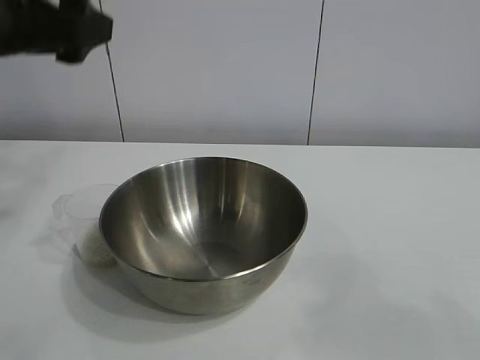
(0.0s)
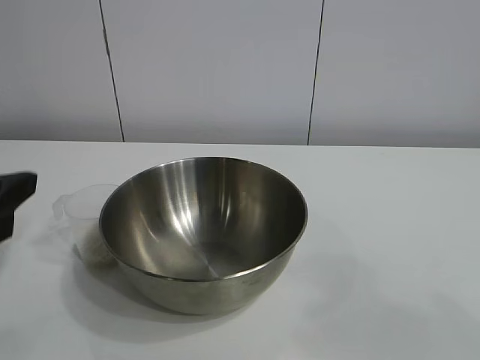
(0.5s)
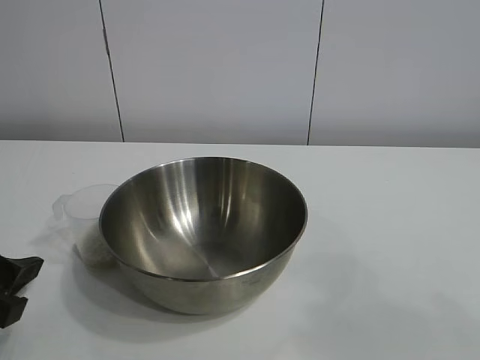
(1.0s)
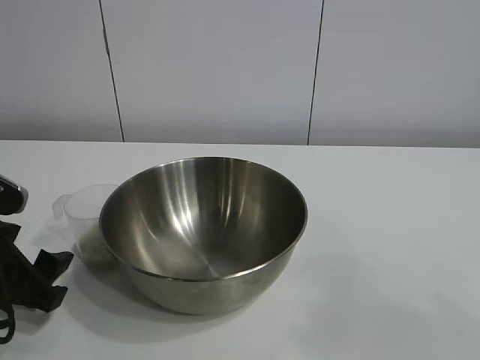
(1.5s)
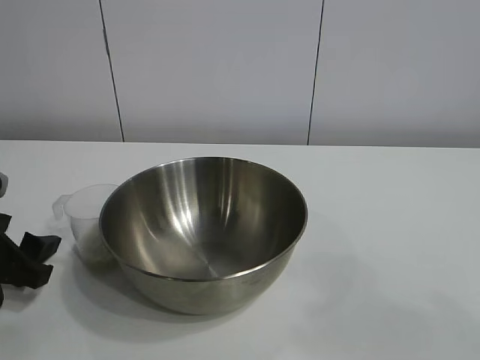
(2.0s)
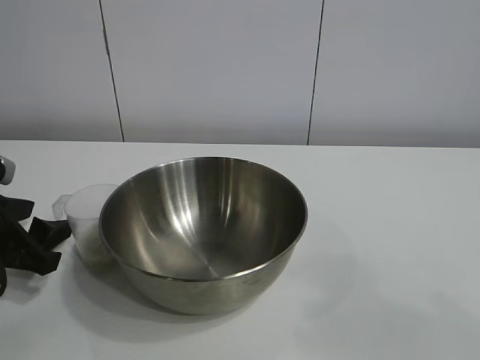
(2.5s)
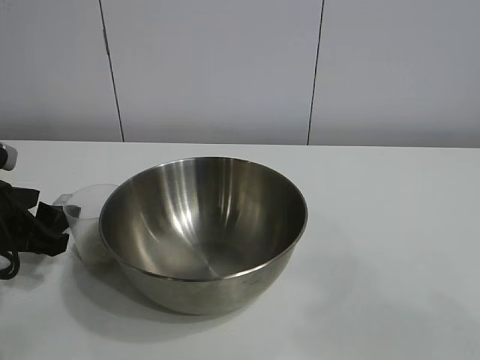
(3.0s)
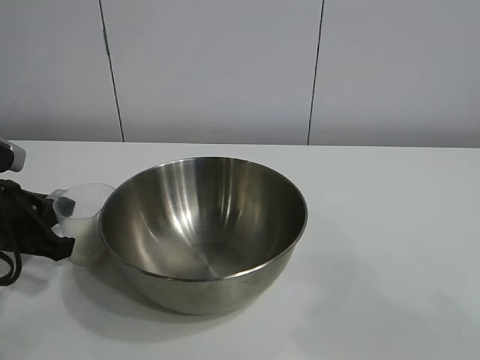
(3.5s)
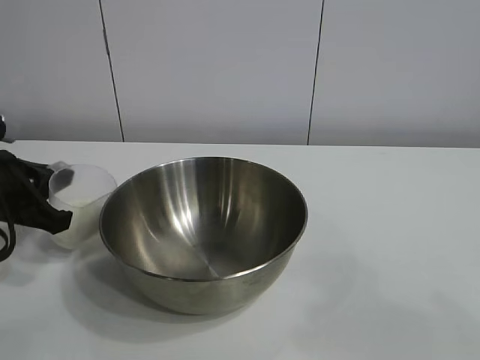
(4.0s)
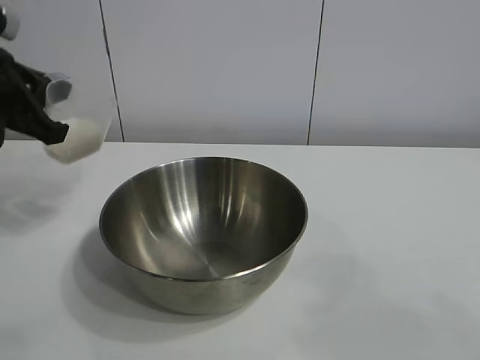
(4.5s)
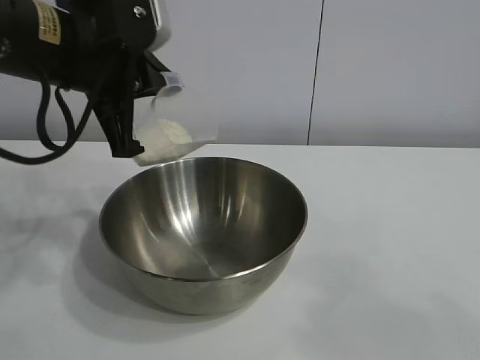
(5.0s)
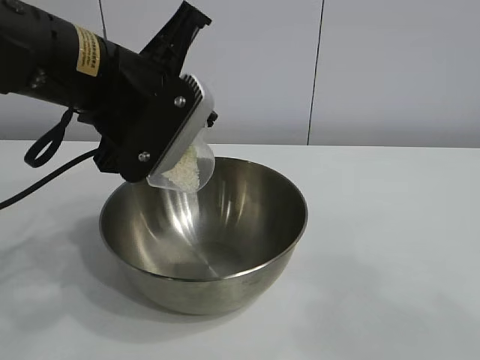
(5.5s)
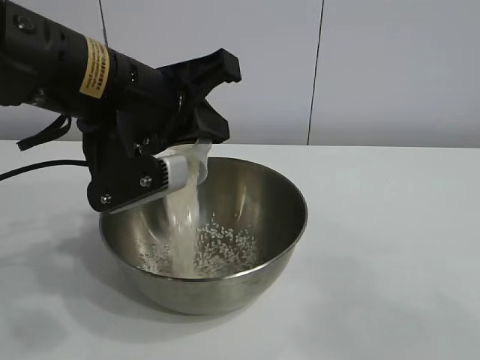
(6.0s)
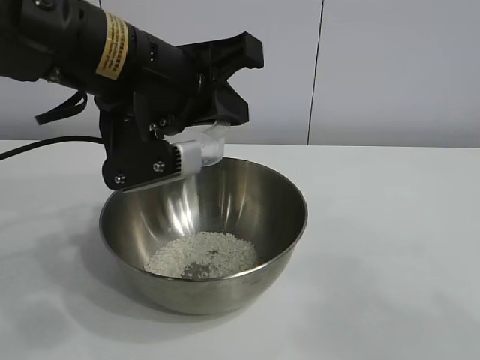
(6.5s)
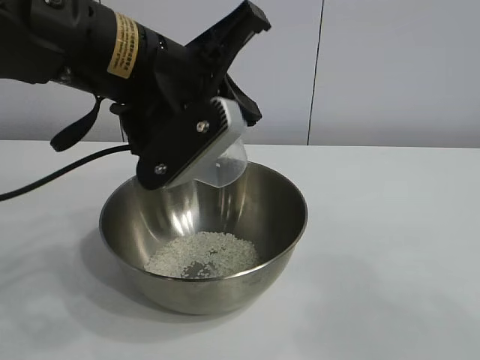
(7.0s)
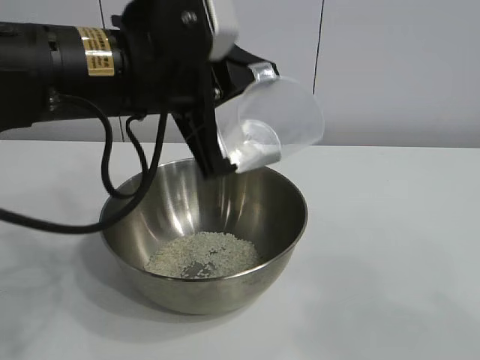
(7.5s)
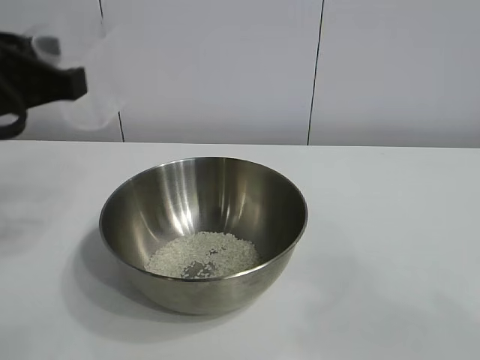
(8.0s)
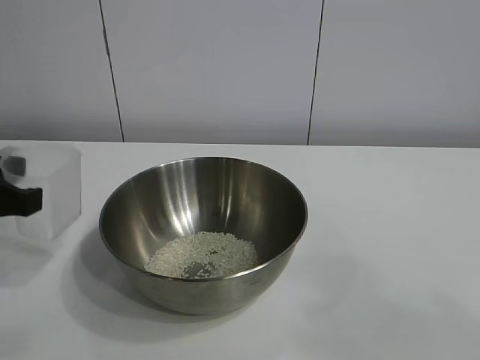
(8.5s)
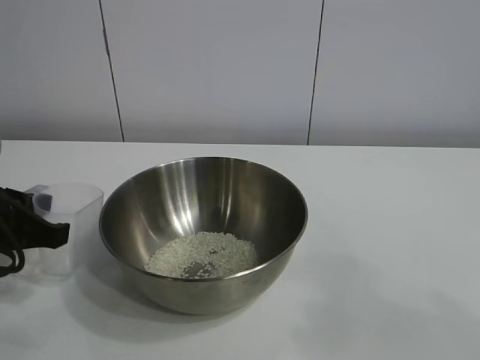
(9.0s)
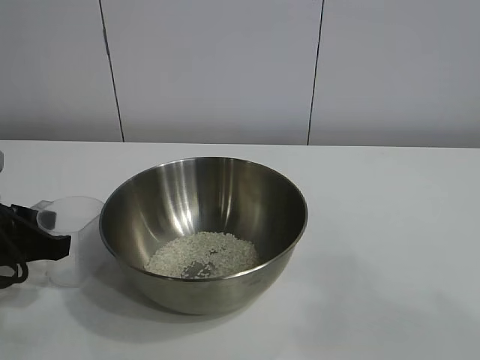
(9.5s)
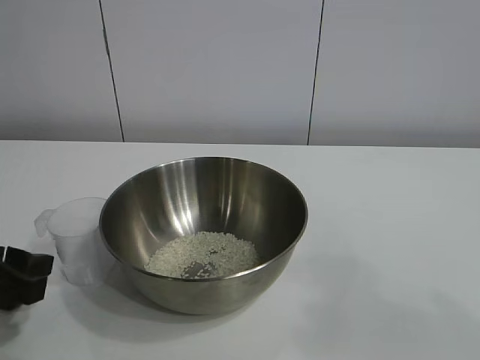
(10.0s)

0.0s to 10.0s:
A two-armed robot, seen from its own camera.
Task of the whole recording: the right gripper grasp the rice container and place it in the center of the table, the left gripper grasp the rice scoop and pour the rice into the rice container.
Step, 0.0s to 3.5s: Grasp the cup with rice in it with left gripper.
Step, 4.0s to 6.5s: Pour the rice from the cup into the bowl with the left gripper.
Step, 7.0s to 9.5s: Place the cup on the table with the left gripper.
